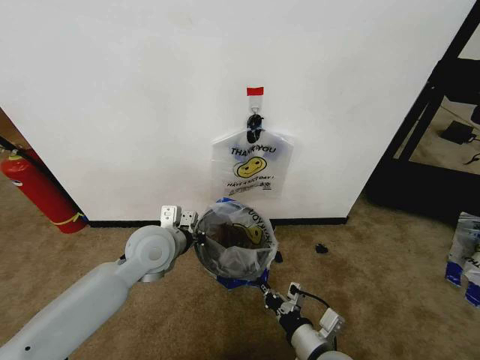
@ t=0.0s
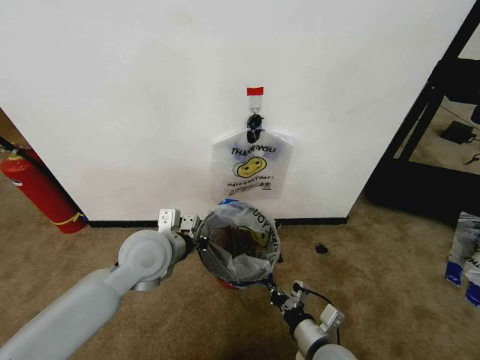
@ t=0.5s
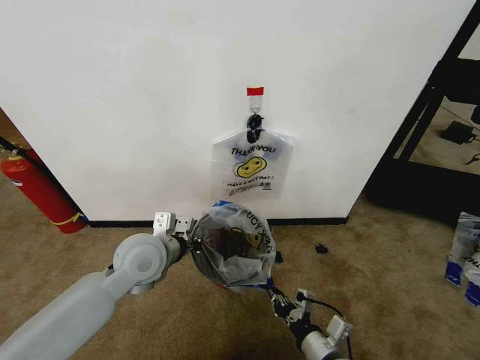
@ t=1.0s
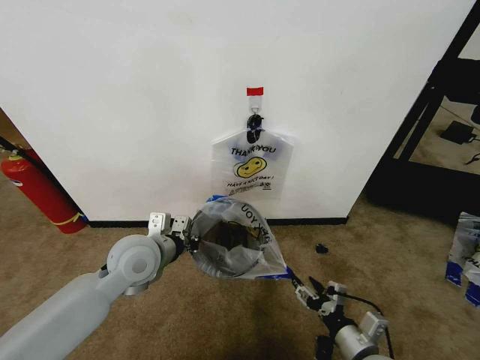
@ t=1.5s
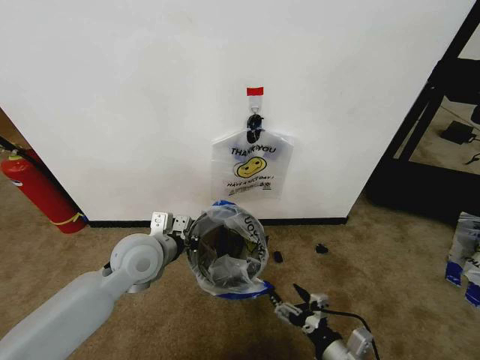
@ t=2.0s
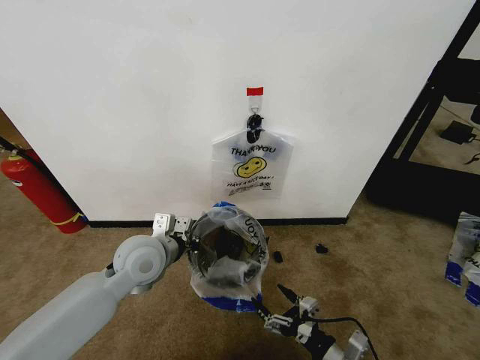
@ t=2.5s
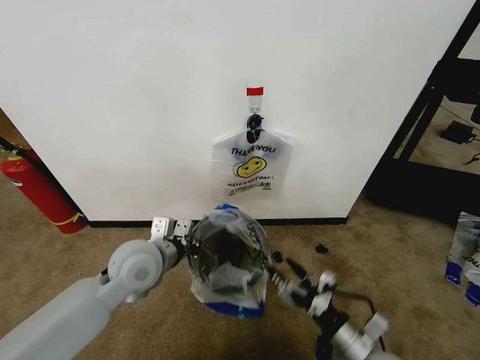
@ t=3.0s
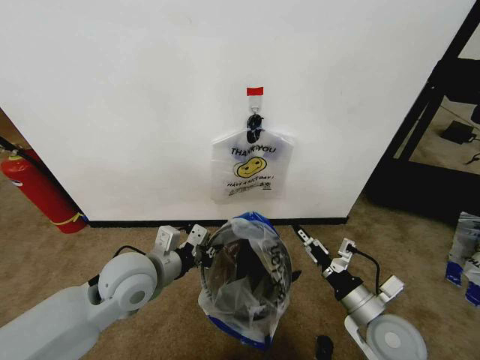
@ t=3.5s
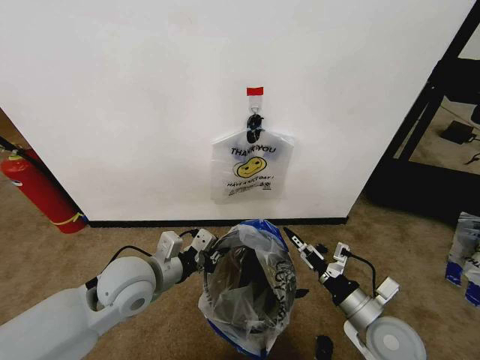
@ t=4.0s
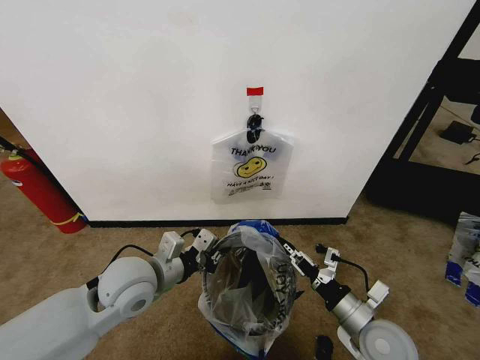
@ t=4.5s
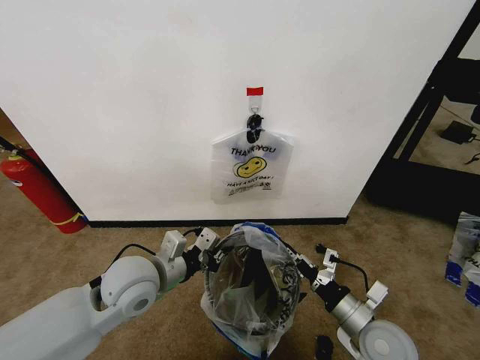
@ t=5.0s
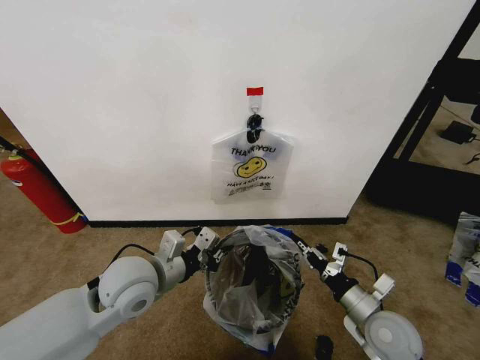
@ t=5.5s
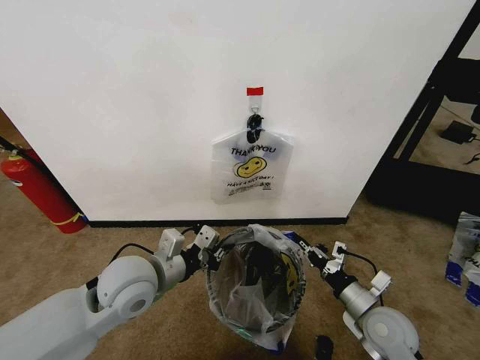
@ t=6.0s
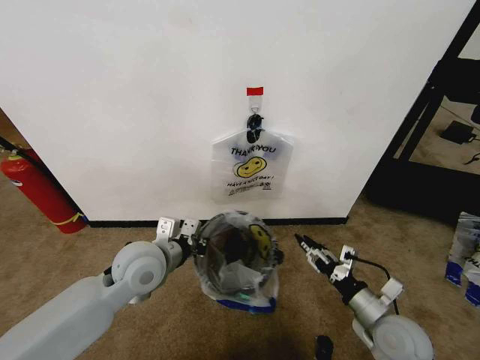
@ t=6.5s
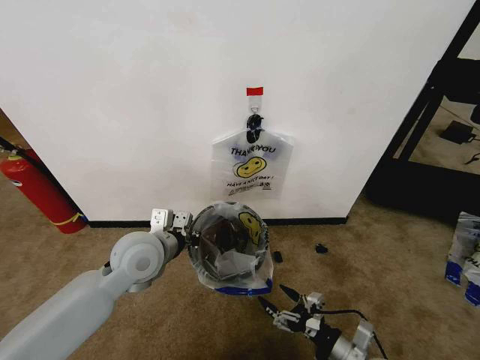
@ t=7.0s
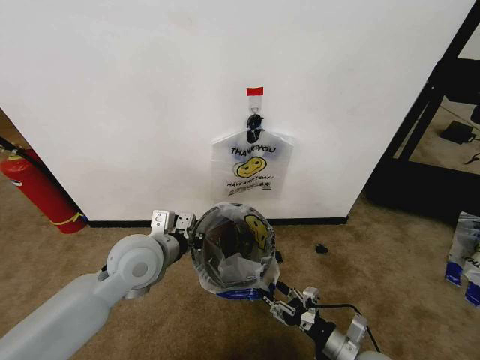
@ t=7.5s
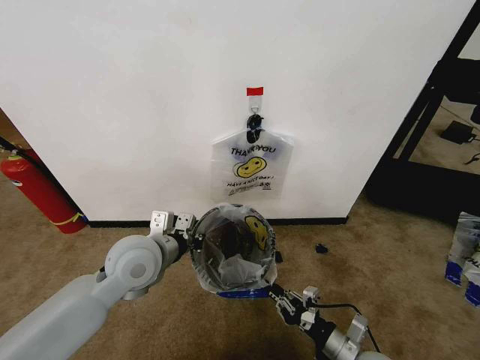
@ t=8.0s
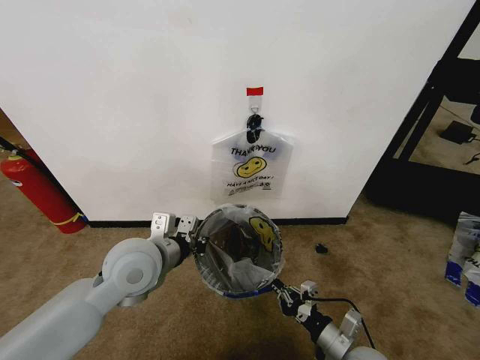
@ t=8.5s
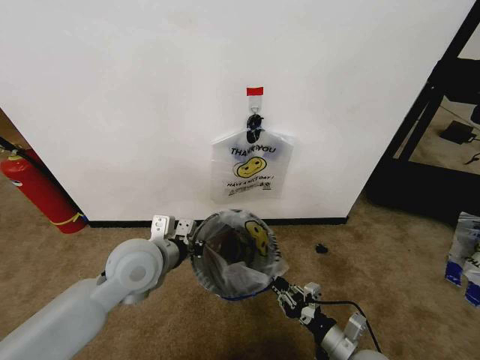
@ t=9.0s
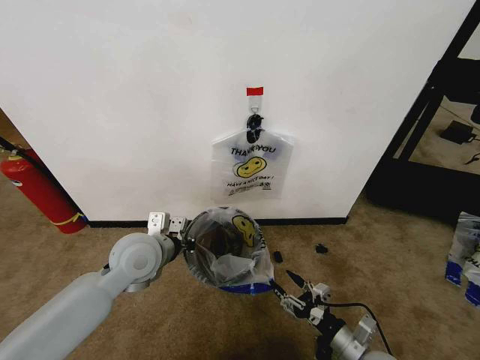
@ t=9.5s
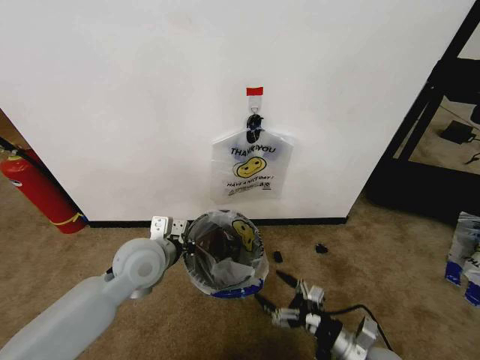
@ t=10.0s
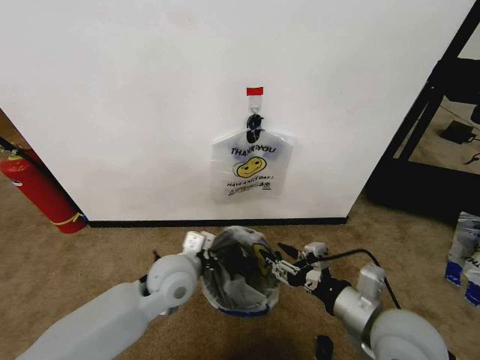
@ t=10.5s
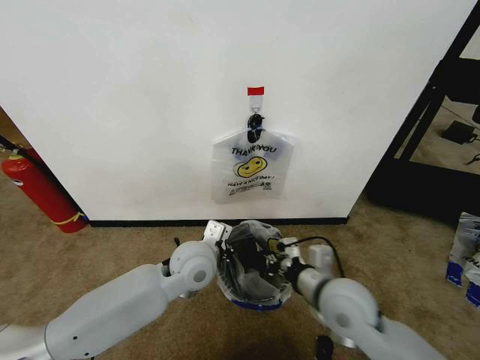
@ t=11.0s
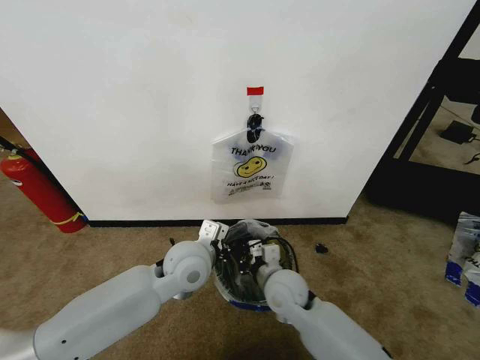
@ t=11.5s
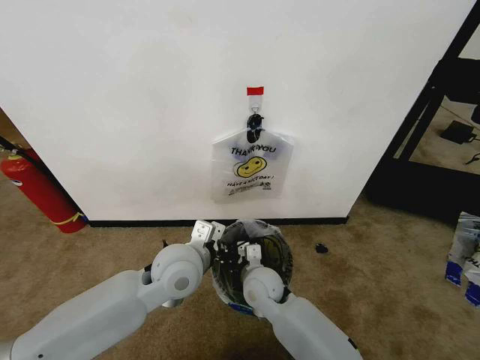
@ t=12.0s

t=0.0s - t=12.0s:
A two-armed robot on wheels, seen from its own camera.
Task of the whole recording: Pick up the garbage bag from the wall and place it over the trash bin.
t=0.0s - t=2.0s: The right gripper shifts some 10 cm to the right, and opens its fingers.
t=2.0s - t=4.0s: The right gripper heads forward and upward, covering about 10 cm. The left gripper ends up roughly 5 cm from where it was.
t=4.0s - t=6.0s: The right gripper closes its fingers.
t=6.0s - t=8.0s: The right gripper goes approximately 10 cm backward and downward, and opens and closes again.
t=8.0s - t=10.0s: The right gripper opens.
t=10.0s - t=12.0s: The left gripper heads to the right, covering approximately 10 cm, while the right gripper goes about 30 cm to the left and forward, and closes.

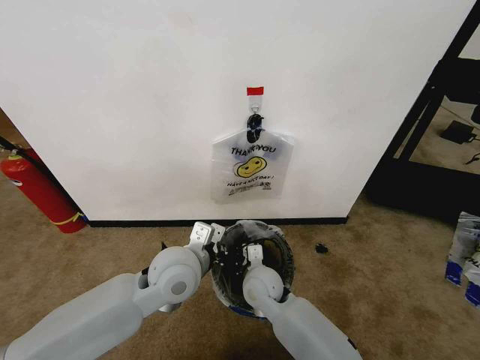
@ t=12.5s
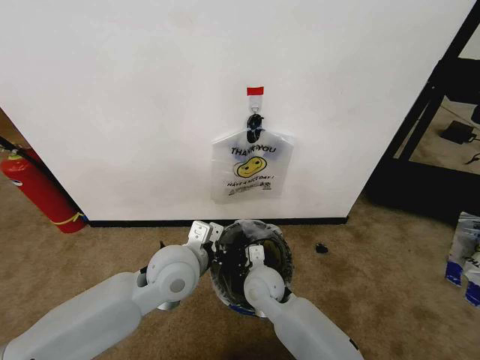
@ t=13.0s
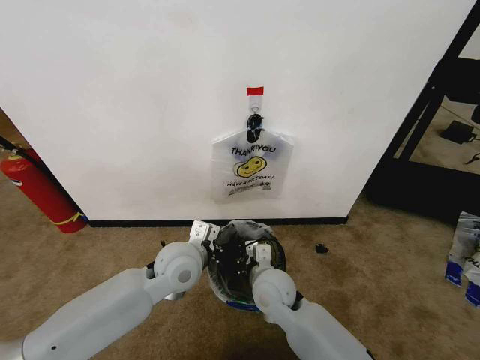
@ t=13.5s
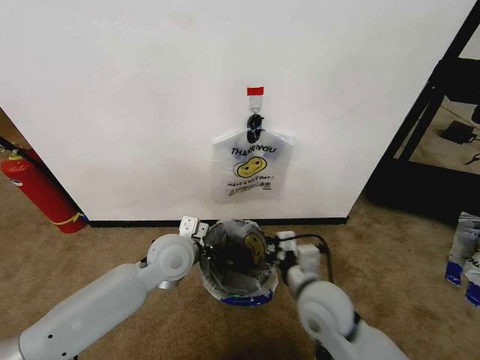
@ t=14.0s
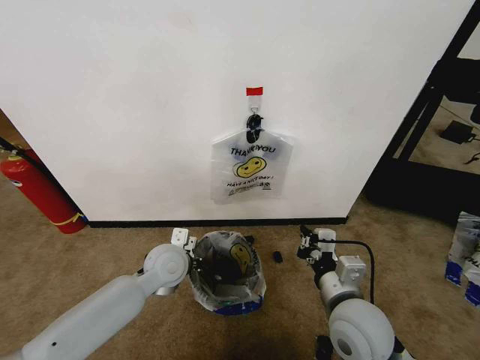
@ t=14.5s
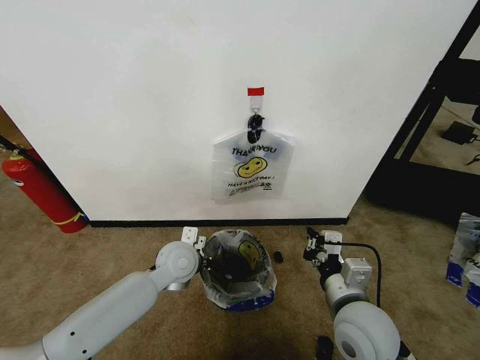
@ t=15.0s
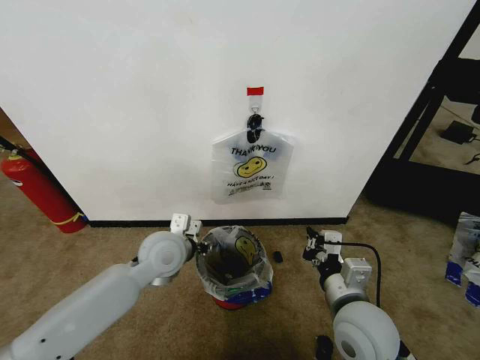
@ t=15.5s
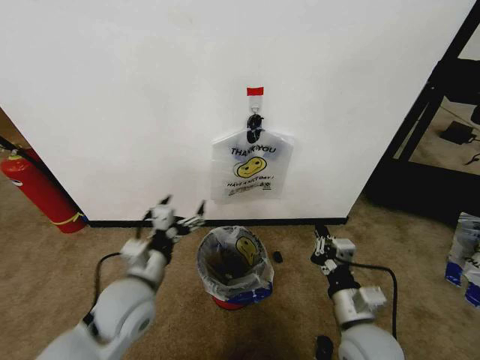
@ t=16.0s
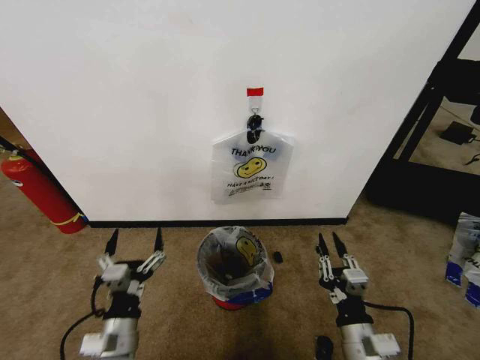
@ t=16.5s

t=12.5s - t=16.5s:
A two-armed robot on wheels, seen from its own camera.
Task of the whole recording: Pick up the garbage bag from the wall and place it over the trash bin.
t=12.5s - t=14.5s: The left gripper moves downward and forward, some 10 cm; the right gripper is displaced to the right, backward and upward by some 20 cm.
t=14.5s - t=16.5s: The left gripper shifts approximately 20 cm backward, and opens its fingers, while the right gripper travels downward and backward by approximately 10 cm.

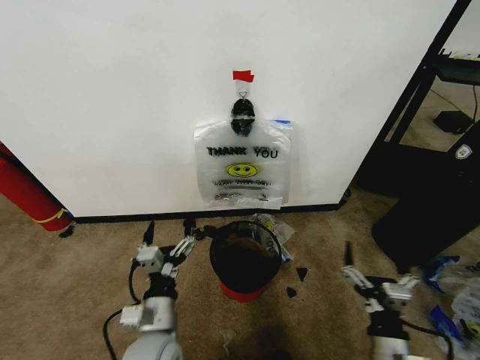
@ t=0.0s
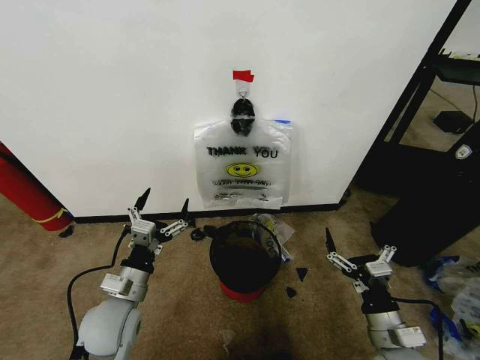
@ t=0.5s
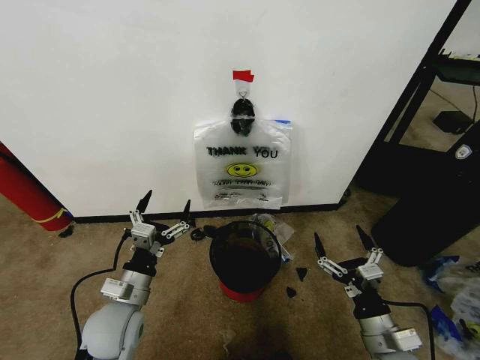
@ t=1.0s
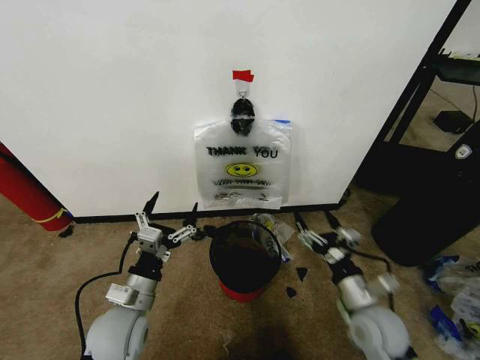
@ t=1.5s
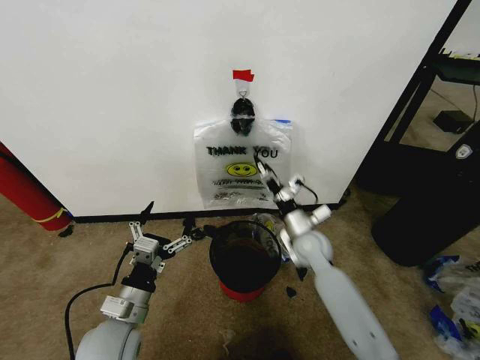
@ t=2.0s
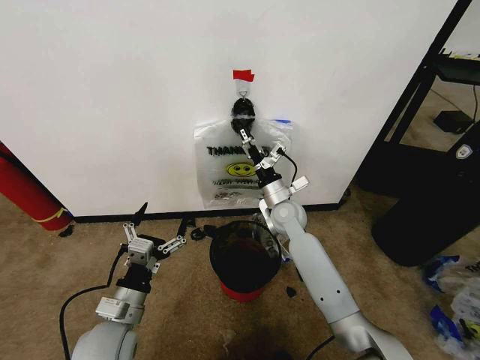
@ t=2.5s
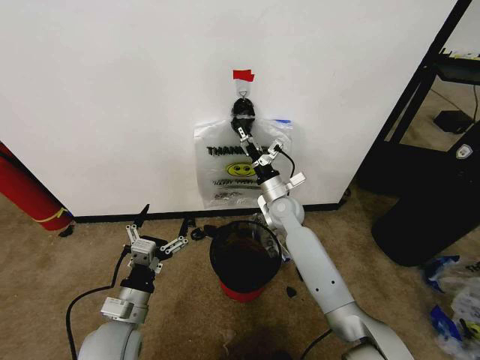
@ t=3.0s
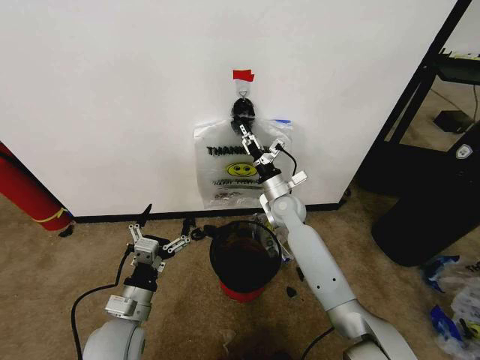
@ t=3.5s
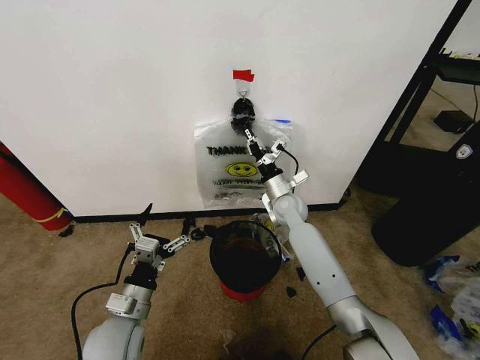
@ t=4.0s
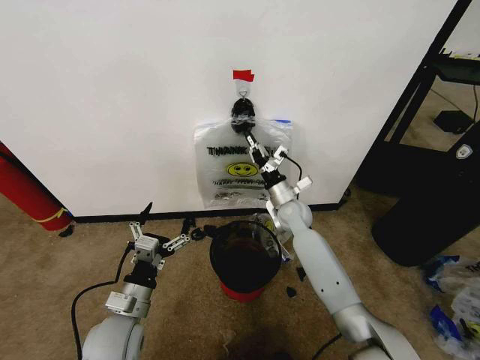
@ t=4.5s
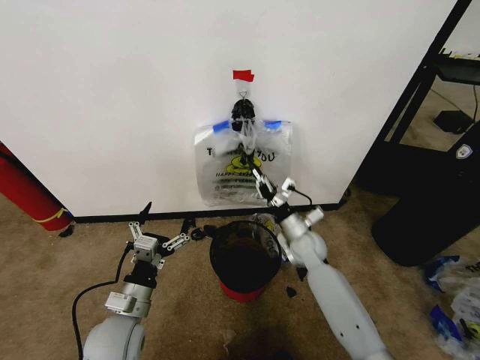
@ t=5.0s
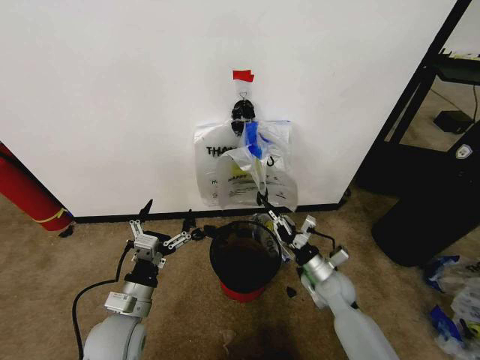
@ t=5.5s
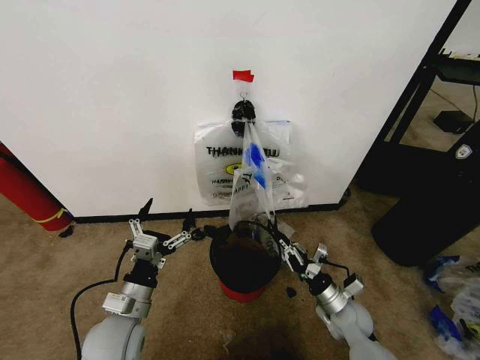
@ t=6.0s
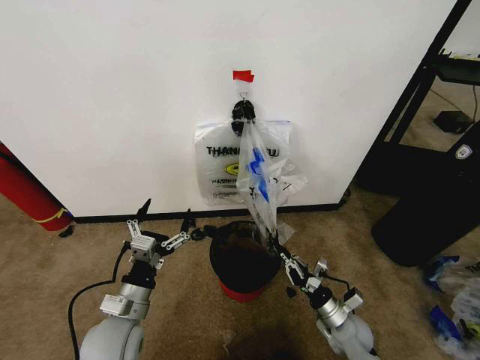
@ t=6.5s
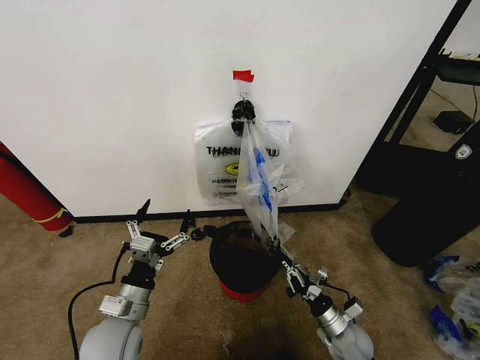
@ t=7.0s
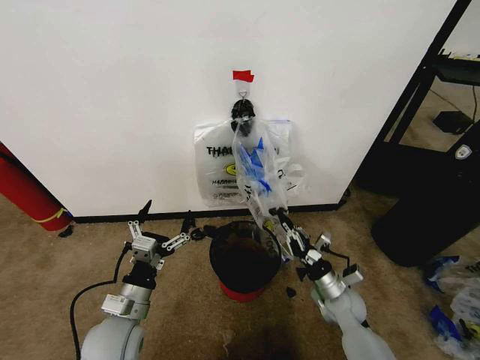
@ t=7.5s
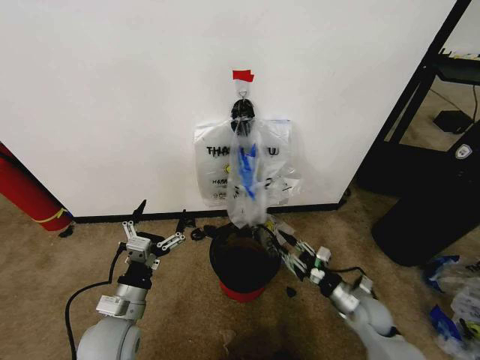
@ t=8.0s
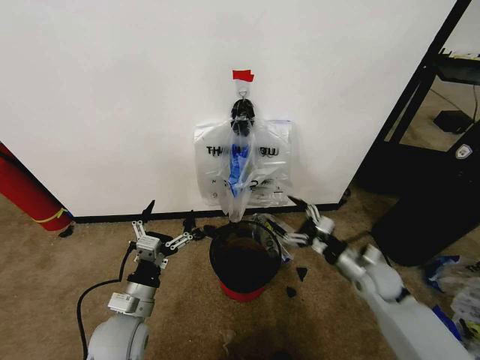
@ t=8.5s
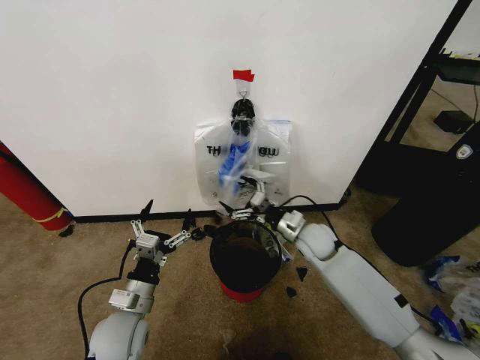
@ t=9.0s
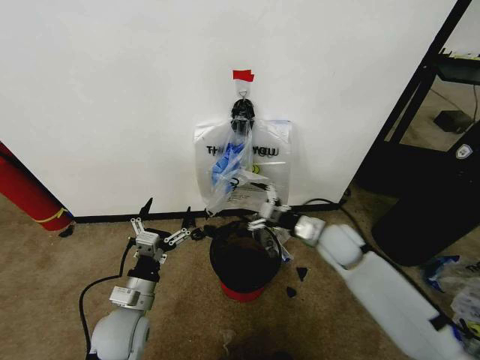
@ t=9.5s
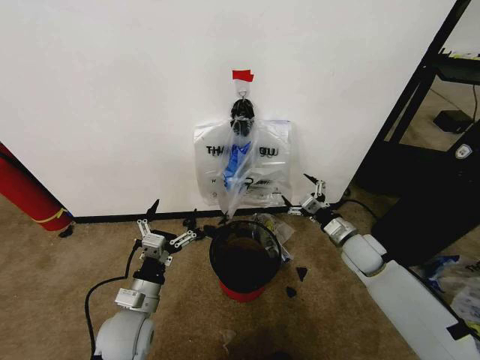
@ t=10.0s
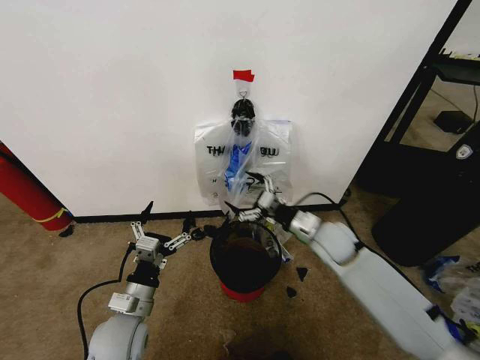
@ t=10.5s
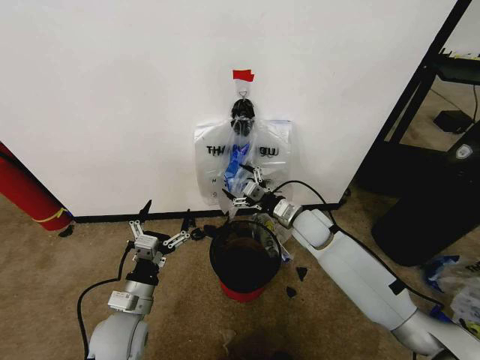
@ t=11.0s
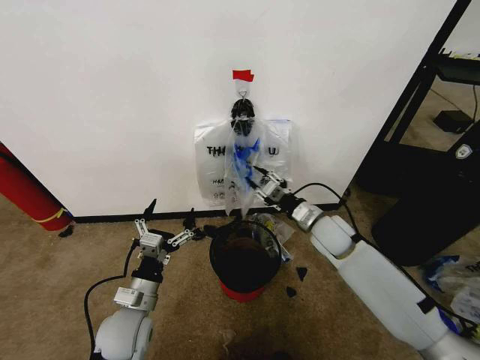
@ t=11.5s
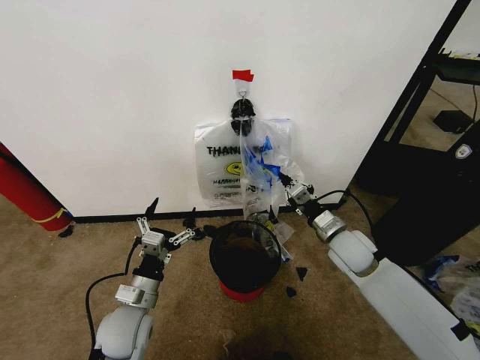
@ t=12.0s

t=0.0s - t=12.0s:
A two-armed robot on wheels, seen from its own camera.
Task of the whole recording: Pick up the garbage bag from the wall and place it over the trash bin.
t=2.0s - t=4.0s: The right gripper shifts roughly 15 cm forward and to the left, and closes.
t=4.0s - t=6.0s: The right gripper heads backward, downward and to the right, covering about 30 cm.
t=6.0s - t=8.0s: The right gripper opens.
t=8.0s - t=10.0s: The right gripper shifts some 15 cm forward and upward, and opens up.
t=10.0s - t=12.0s: The right gripper moves to the left, some 5 cm, and closes.
